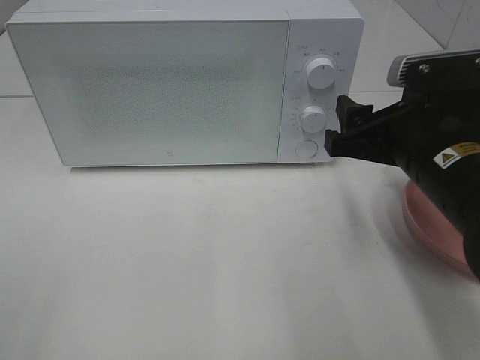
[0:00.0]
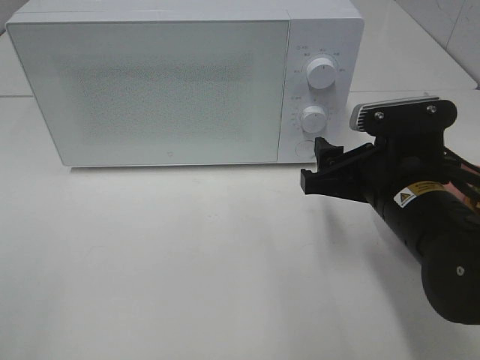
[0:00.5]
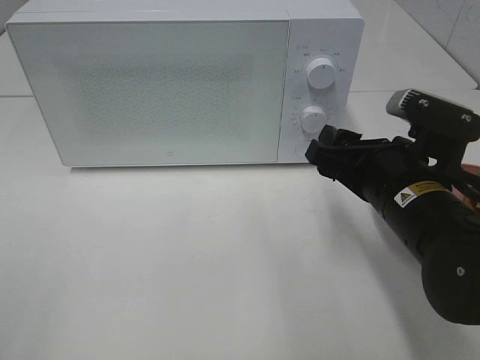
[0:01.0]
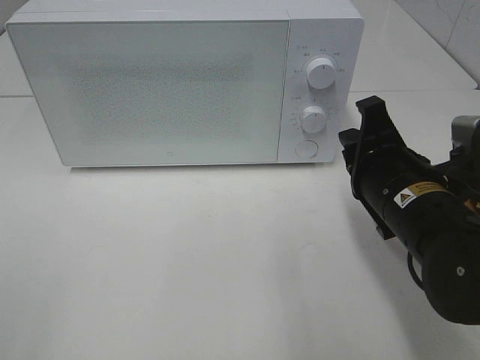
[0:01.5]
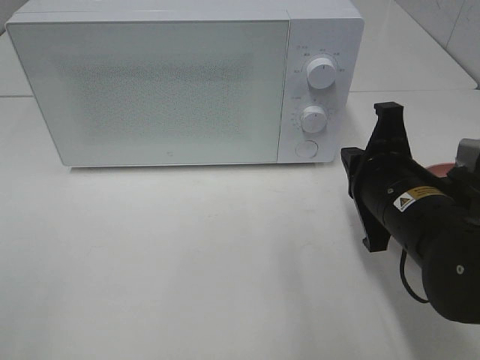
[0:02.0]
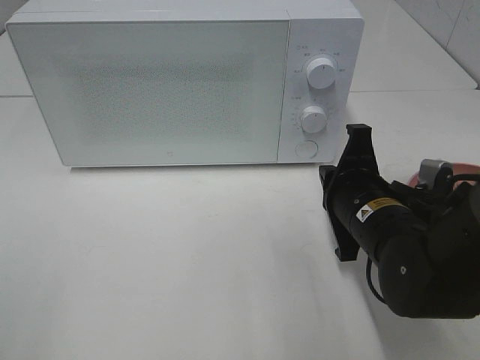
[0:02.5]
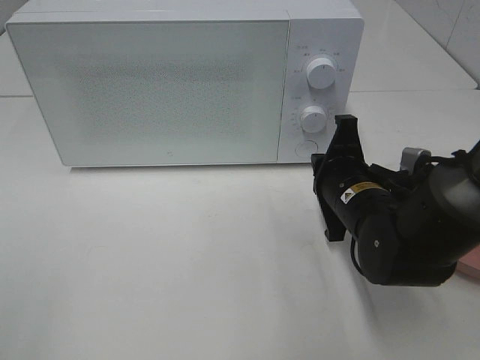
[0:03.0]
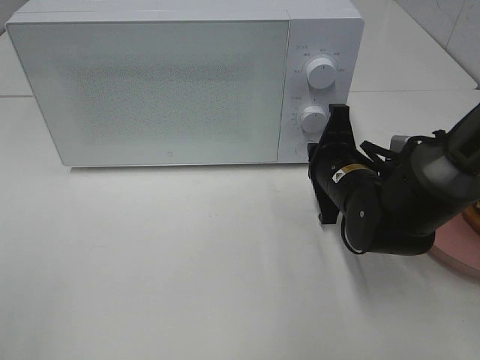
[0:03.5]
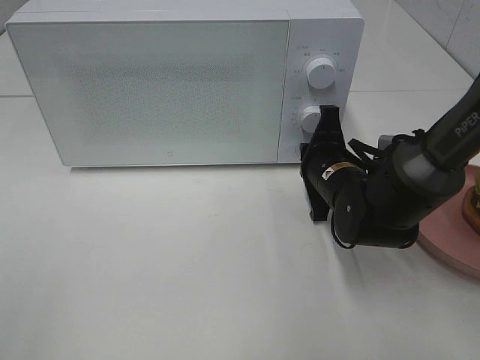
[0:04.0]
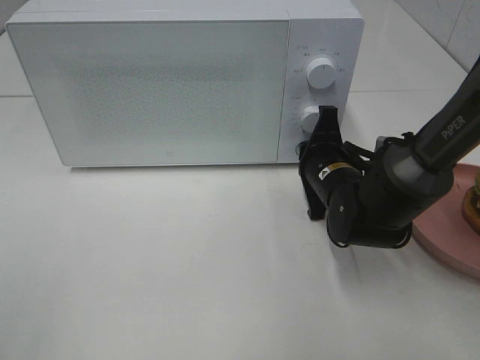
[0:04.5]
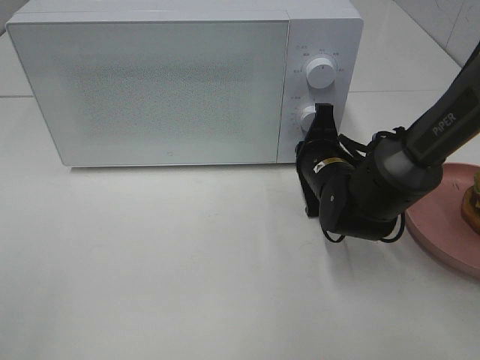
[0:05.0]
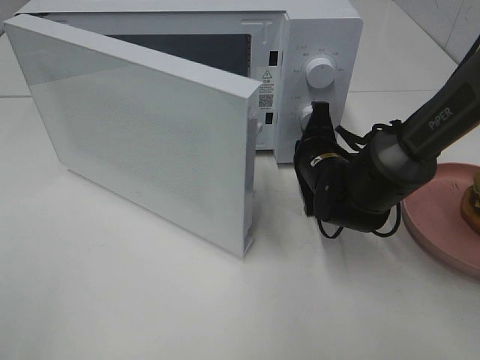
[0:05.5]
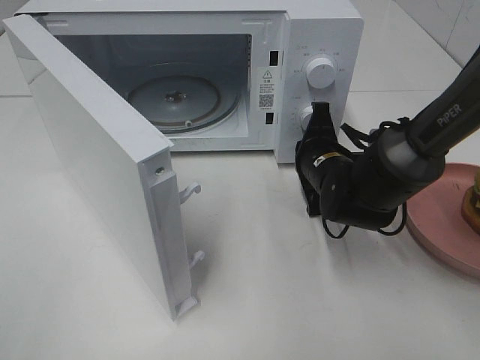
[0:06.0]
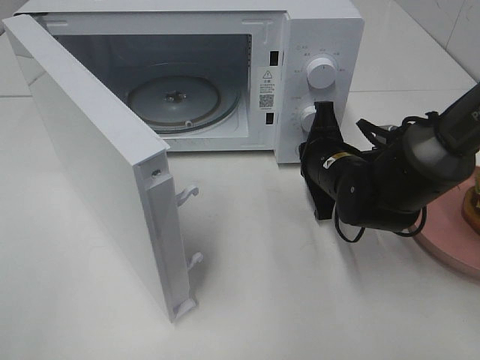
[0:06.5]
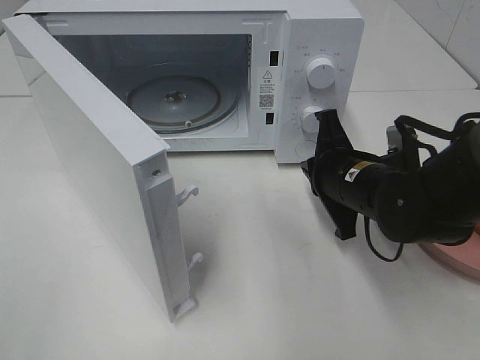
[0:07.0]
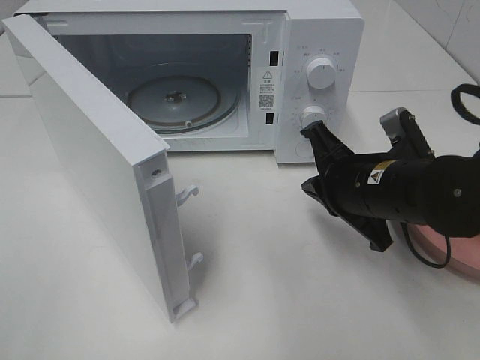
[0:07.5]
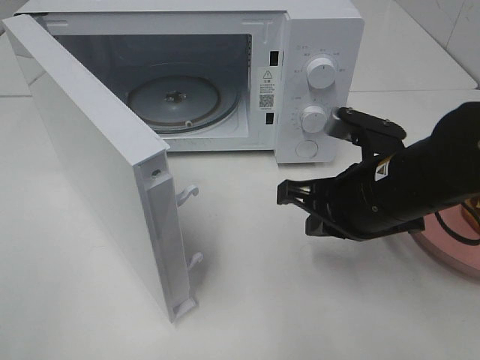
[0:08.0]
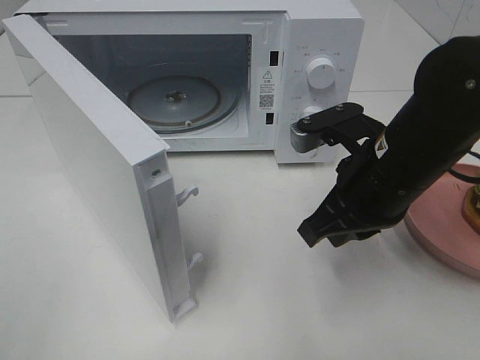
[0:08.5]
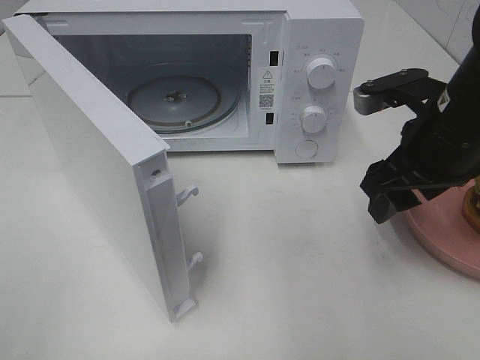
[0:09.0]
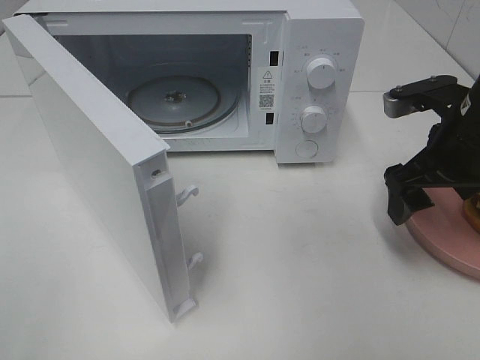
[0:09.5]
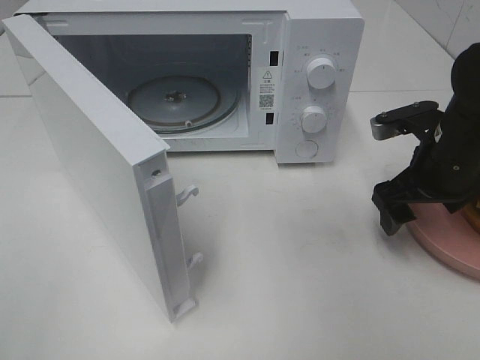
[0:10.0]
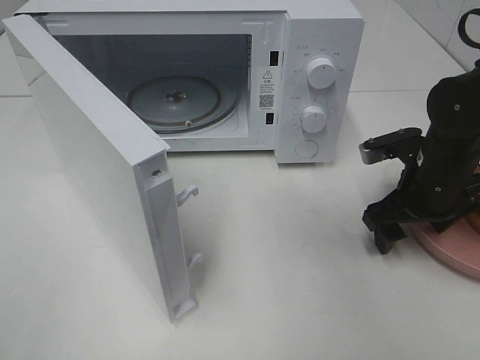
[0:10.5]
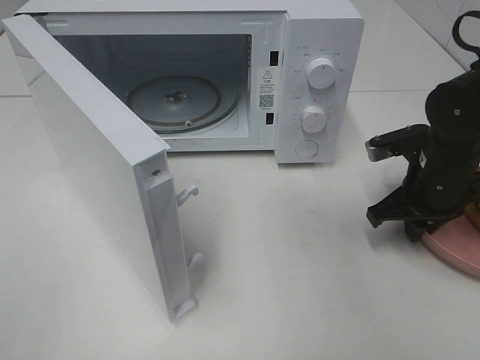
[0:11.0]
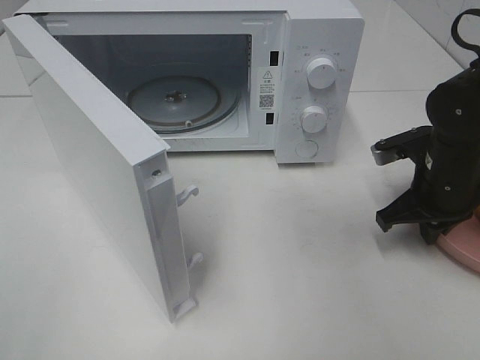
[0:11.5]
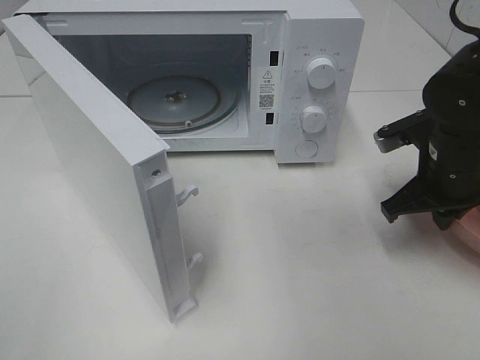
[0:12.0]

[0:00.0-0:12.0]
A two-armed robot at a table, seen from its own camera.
Task of the whole recording: Heat the burger.
Step, 0:00.0 to 0:06.5: Right hand: press the switch.
Step, 0:07.0 to 0:11.5: Right hand: grab the plate with the hamburger.
0:00.0 to 0:02.0: The right gripper closes up.
0:02.0 to 0:04.0: The right gripper goes some 10 cm forward and downward.
0:06.0 to 0:08.0: The right gripper is displaced backward and upward by some 15 cm.
0:08.0 to 0:10.0: The right gripper is displaced to the right and forward by approximately 10 cm, and opens.
0:10.0 to 0:12.0: The right gripper closes its fingers.

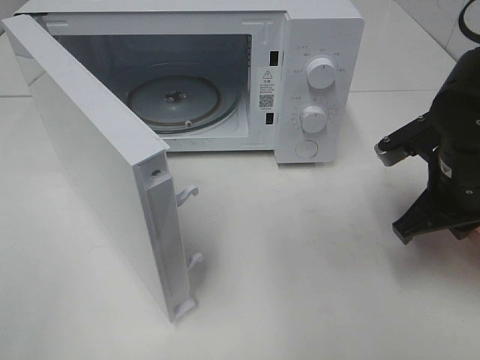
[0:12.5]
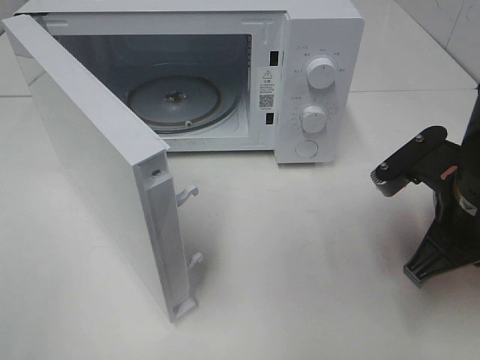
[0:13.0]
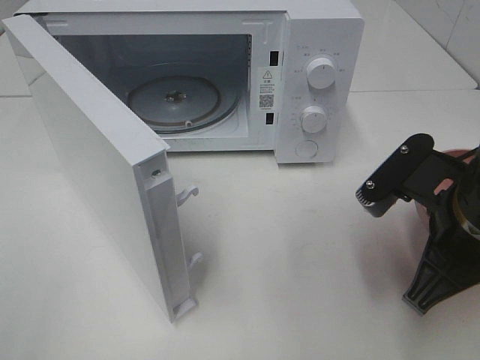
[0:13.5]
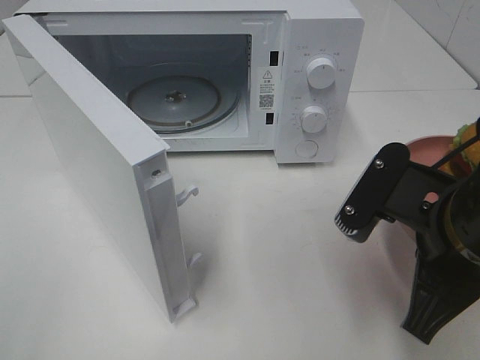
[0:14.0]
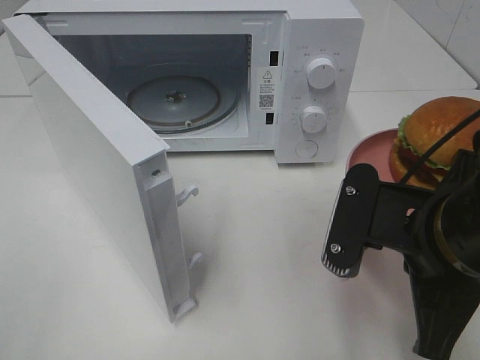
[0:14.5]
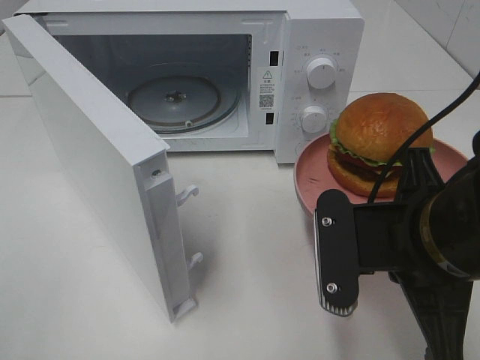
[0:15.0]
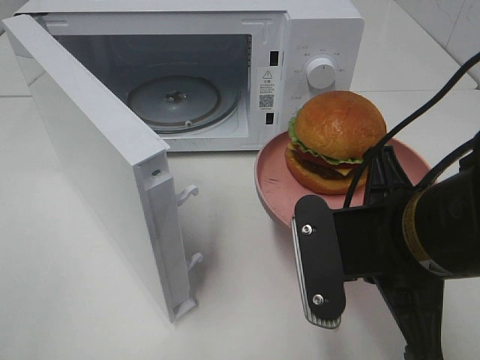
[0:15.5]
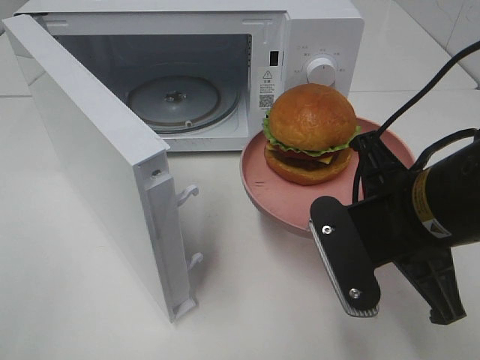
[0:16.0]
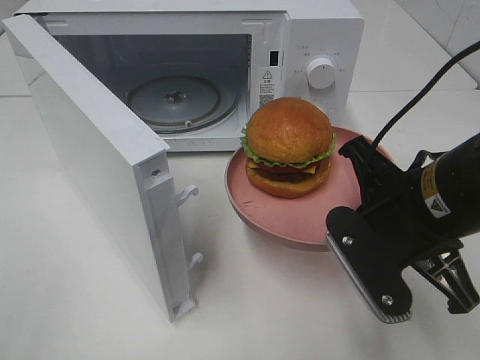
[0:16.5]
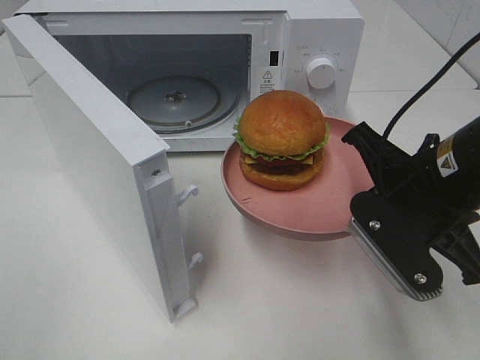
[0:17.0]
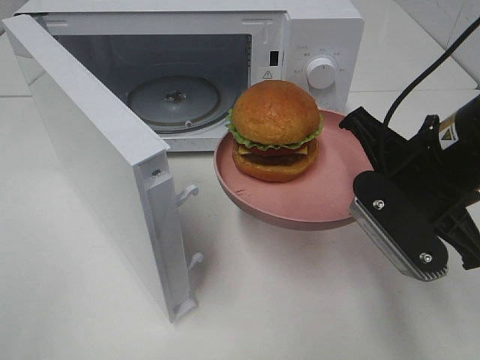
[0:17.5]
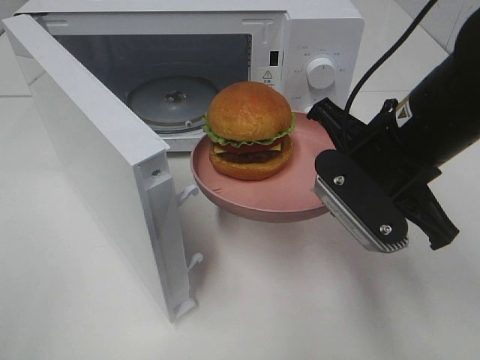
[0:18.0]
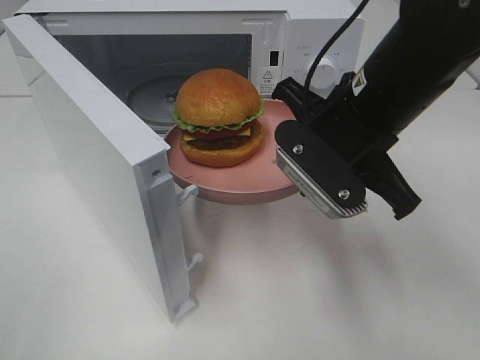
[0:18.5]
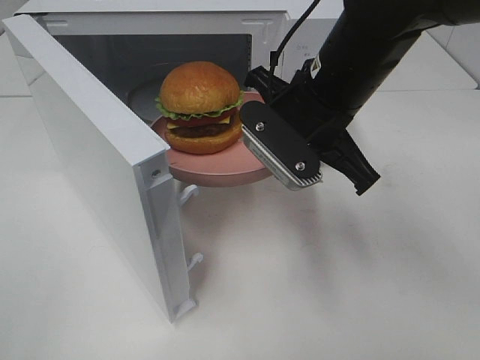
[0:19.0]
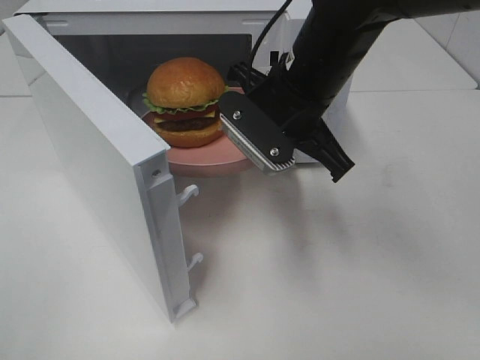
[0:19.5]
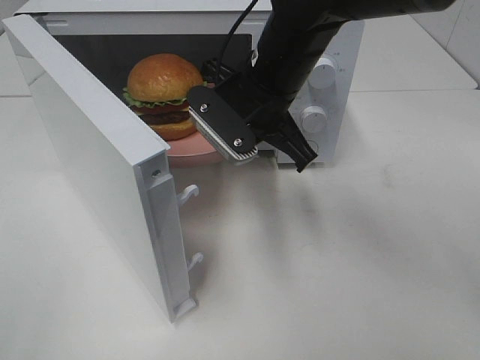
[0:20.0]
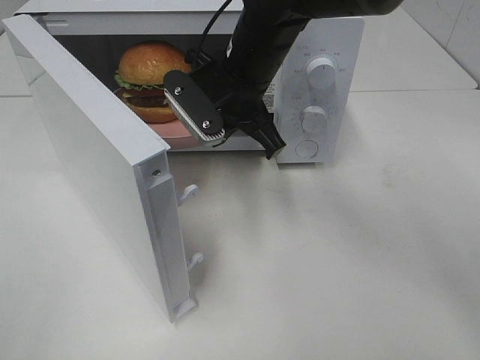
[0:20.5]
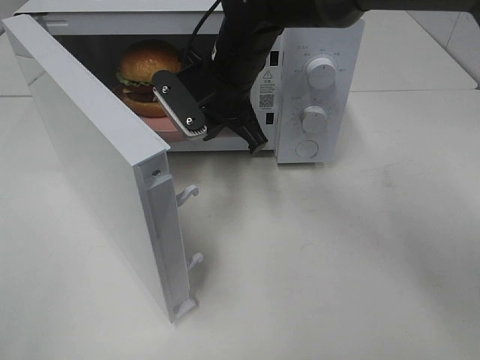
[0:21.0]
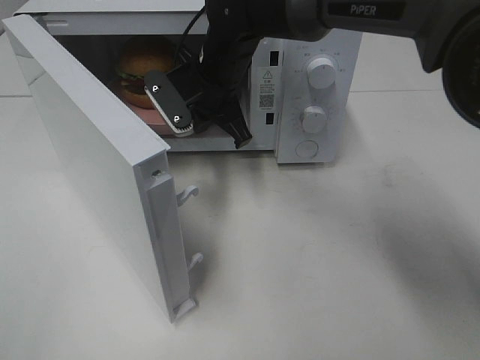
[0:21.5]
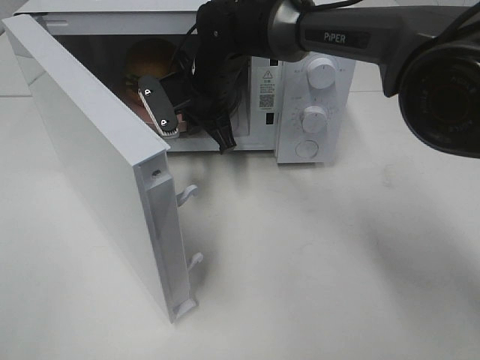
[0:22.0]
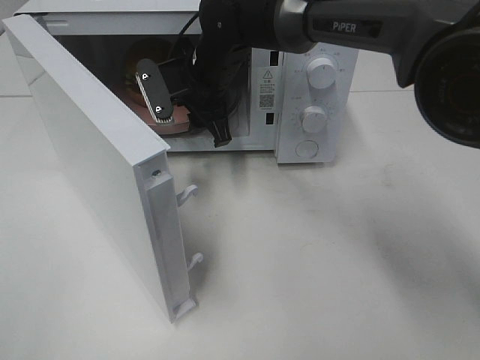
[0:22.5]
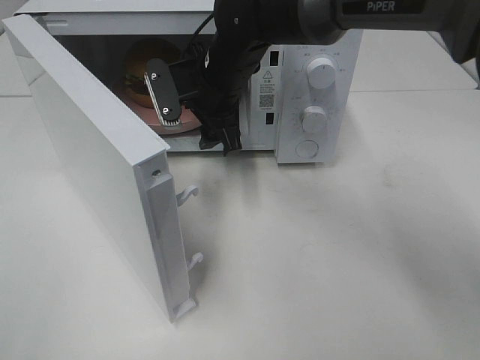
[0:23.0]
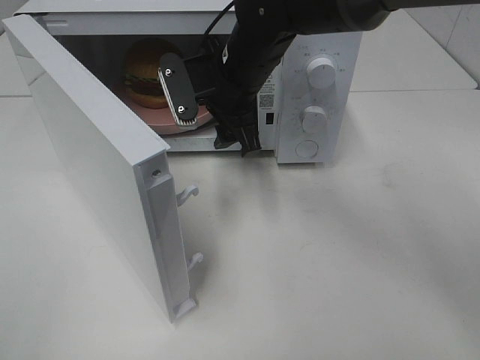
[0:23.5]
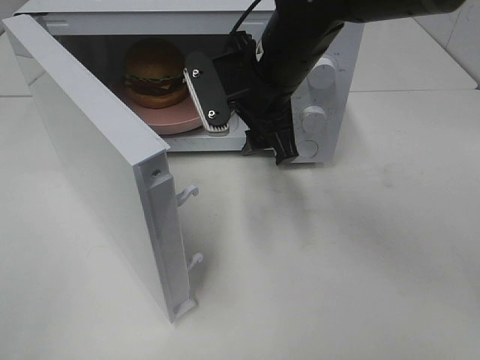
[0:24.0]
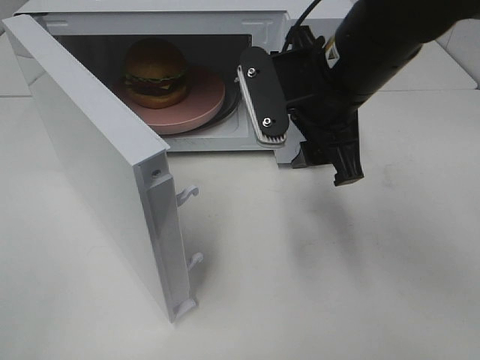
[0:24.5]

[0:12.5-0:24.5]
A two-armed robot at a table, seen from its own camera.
Task of the whole recording: Heat the burger.
Step, 0:12.5 to 0:22.5: Right hand: place the plate in the microwave.
0:12.5 to 0:14.5: The right gripper goes about 15 cm backward and to the left.
0:16.5 to 0:18.5: The right gripper shifts approximately 5 cm forward.
0:18.5 to 0:20.5: The right gripper heads forward and to the left, covering approximately 15 cm.
0:20.5 to 0:22.5: The right gripper heads forward, covering about 5 cm, and opens up.
0:22.5 to 0:24.5: The right gripper moves backward, to the right and upward, about 20 cm.

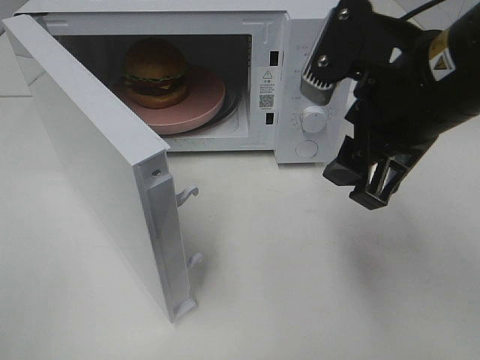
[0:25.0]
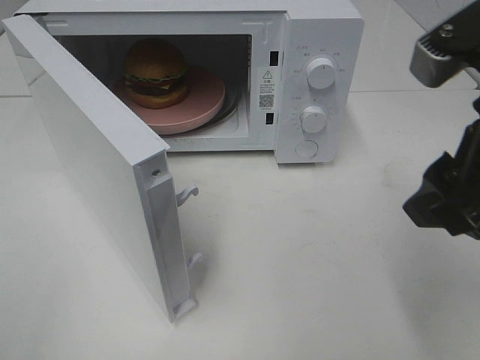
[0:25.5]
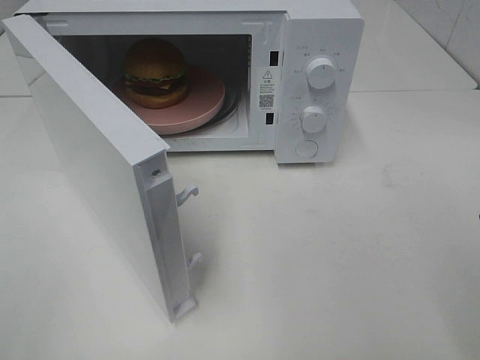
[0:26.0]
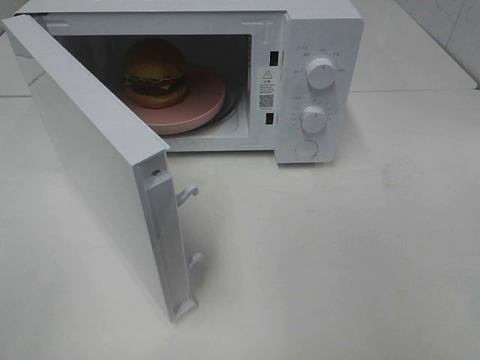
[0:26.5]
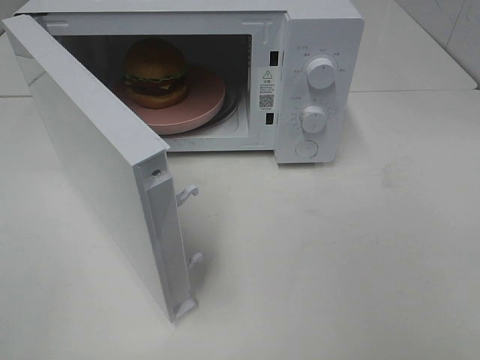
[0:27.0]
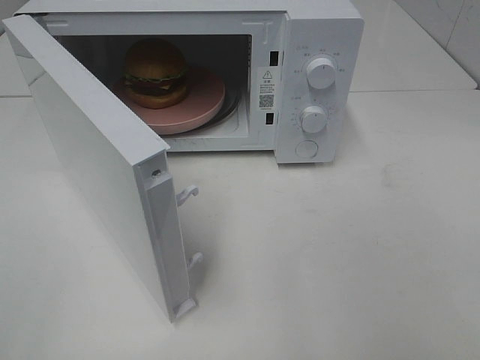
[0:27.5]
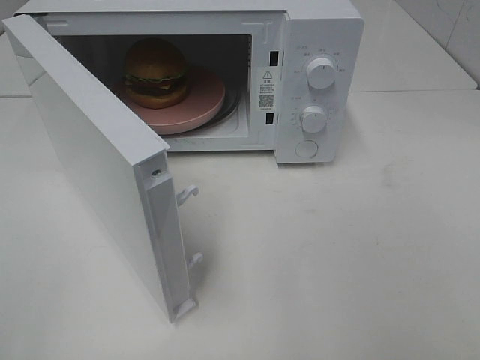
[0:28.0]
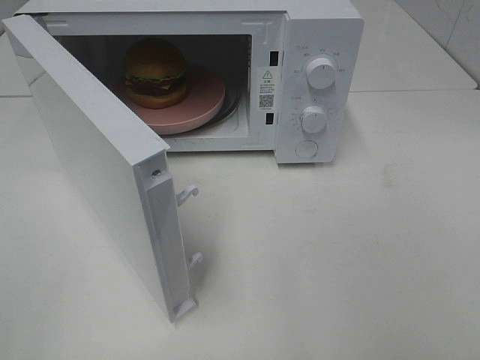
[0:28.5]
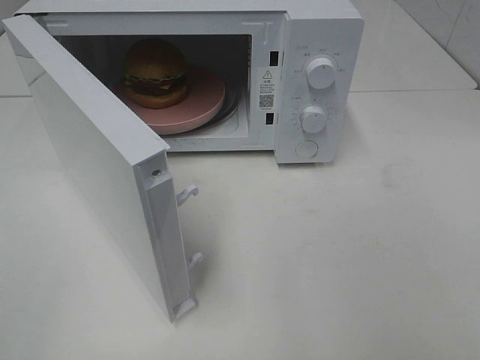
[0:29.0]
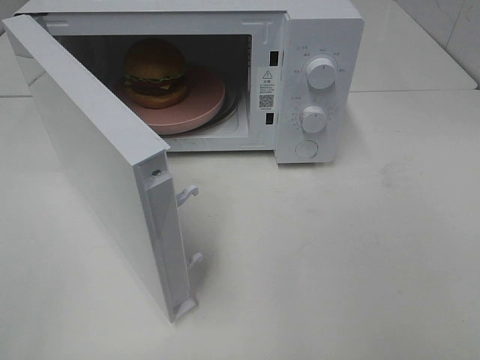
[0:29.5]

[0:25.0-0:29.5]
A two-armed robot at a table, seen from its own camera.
Task of the whole recording: Heat the burger.
0:25.0 to 0:27.0: The right gripper heads backward and to the right, covering some 20 cm.
